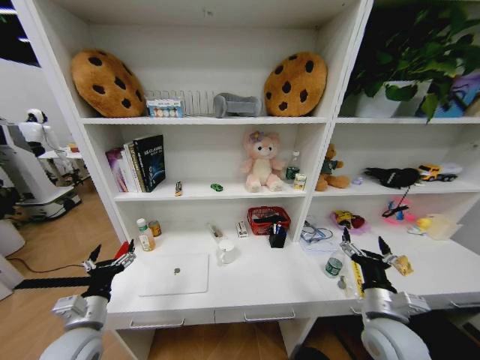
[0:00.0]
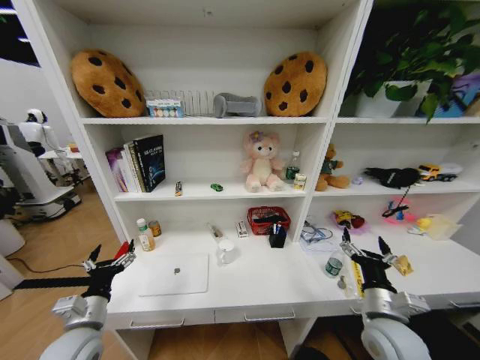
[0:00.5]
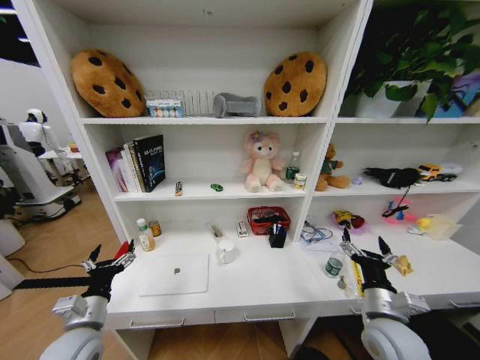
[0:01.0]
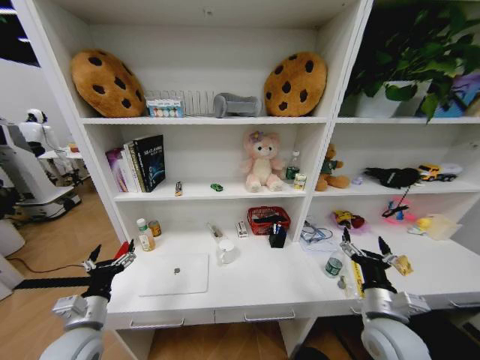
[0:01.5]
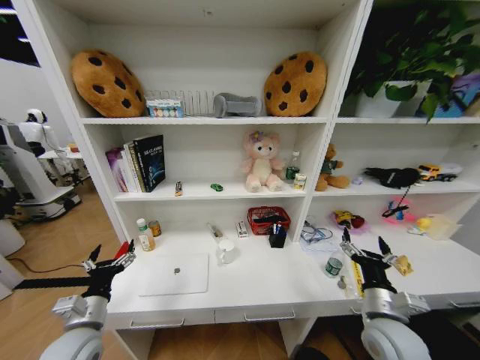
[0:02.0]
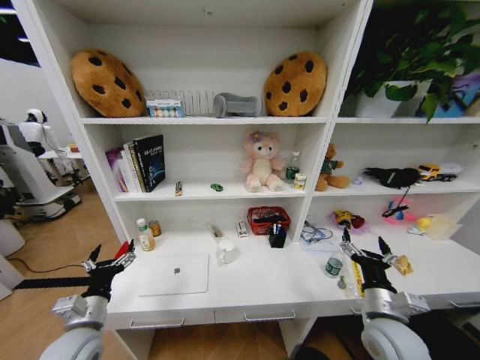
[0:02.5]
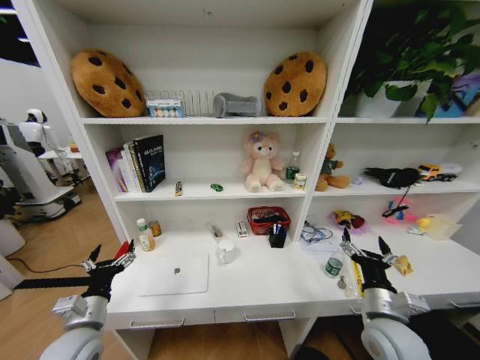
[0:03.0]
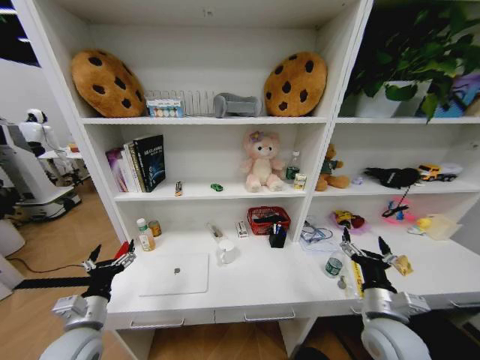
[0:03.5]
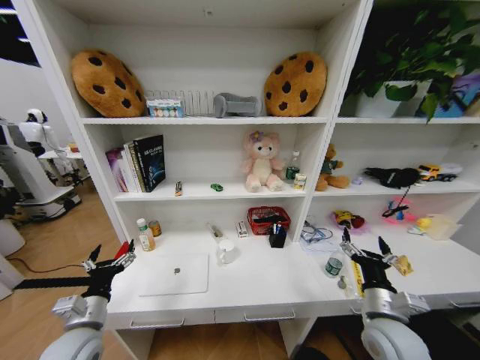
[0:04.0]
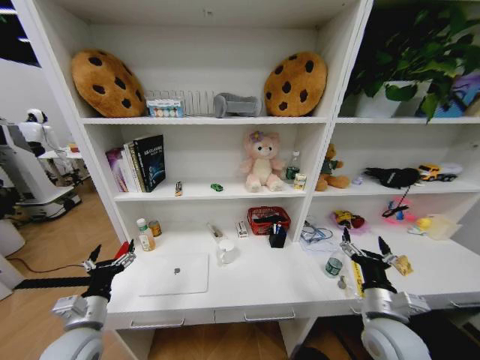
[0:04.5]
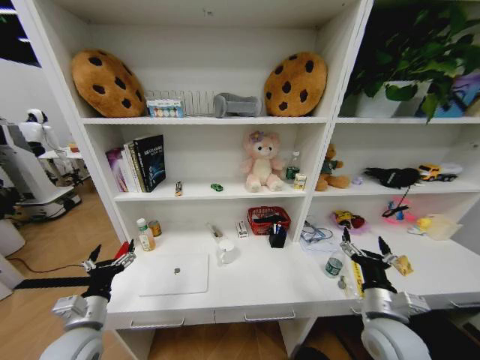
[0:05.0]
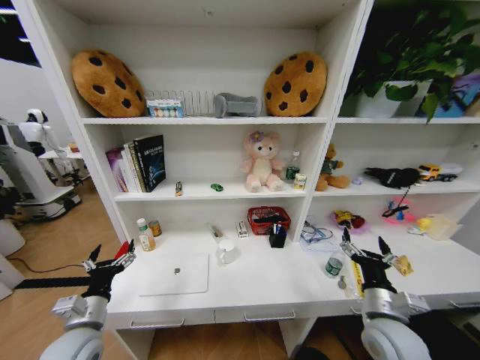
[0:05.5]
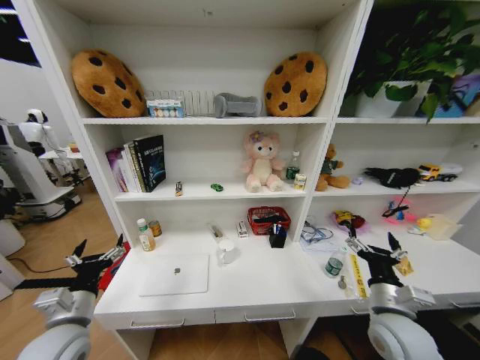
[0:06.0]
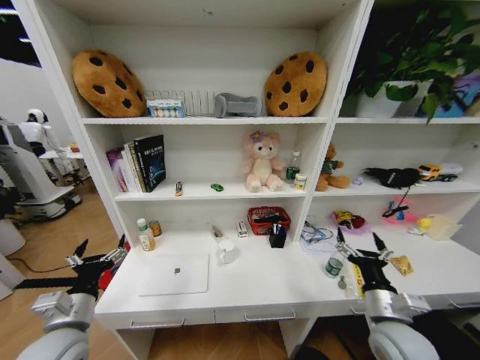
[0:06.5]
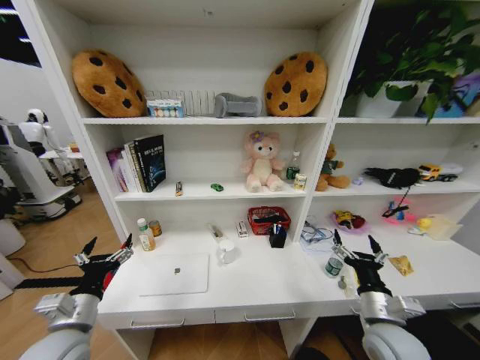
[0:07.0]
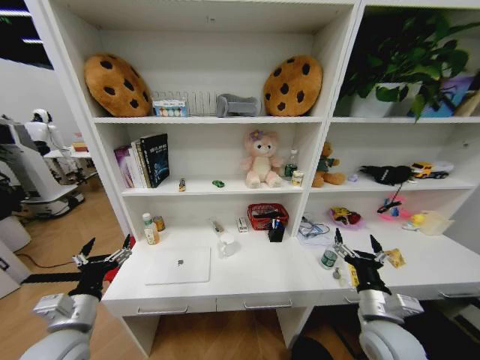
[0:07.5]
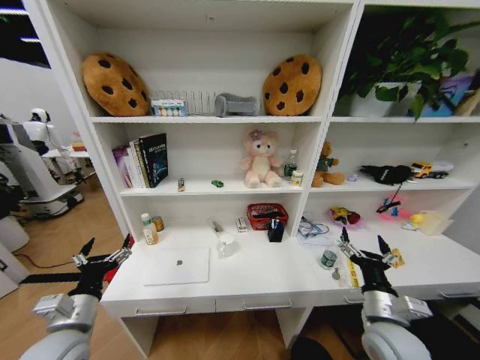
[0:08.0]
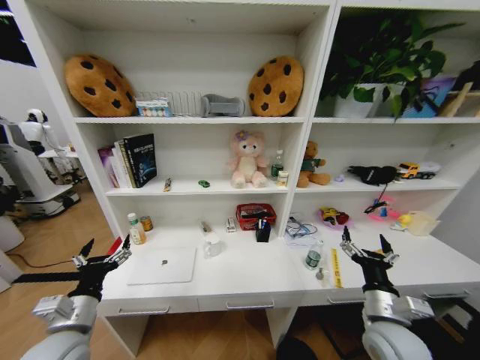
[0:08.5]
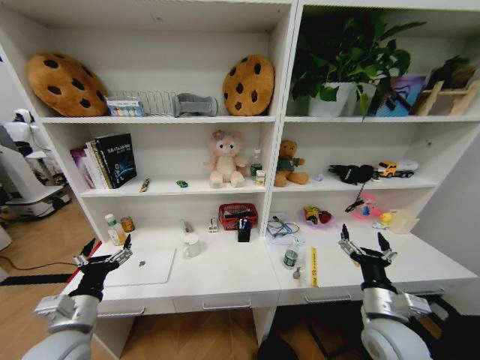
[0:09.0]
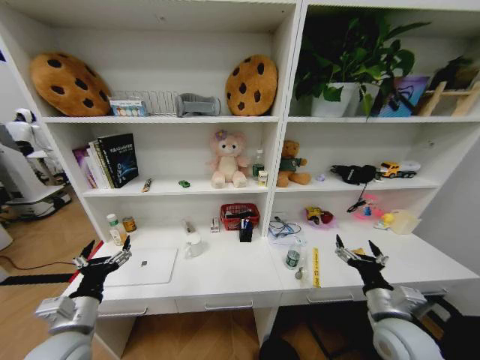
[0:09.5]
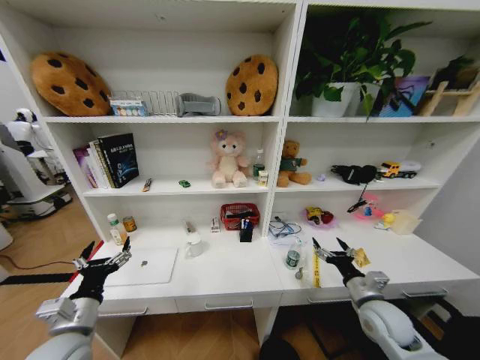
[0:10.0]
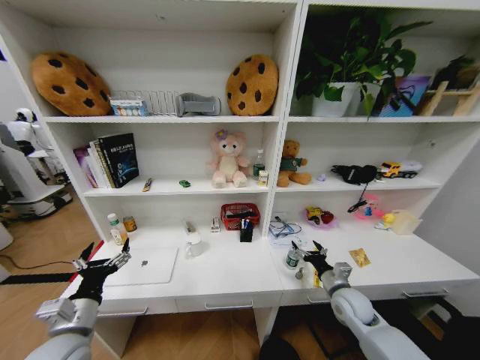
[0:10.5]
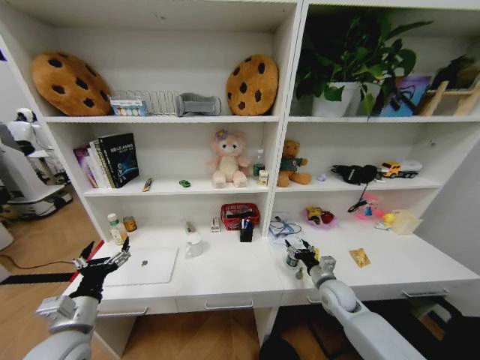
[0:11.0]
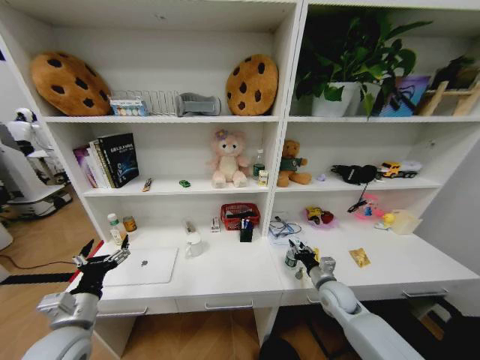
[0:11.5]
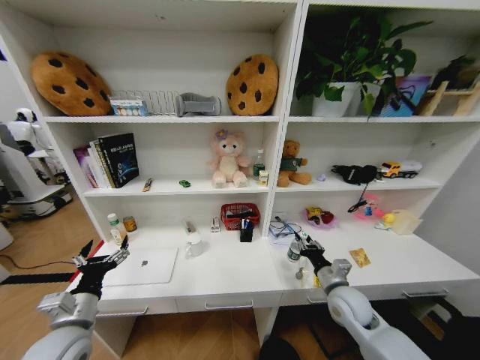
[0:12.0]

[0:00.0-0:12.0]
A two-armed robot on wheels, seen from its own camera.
Task of the whole recording: Organize the objects on the table.
0:00.0 to 0:04.0: Neither gripper changes place.
0:04.0 to 0:06.0: The grippers stay close to where they were, moving slightly.
0:08.0 to 0:10.0: The right gripper is displaced forward by roughly 5 cm.
0:10.0 to 0:12.0: The right gripper travels to the left by roughly 5 cm, and closes its fingers.

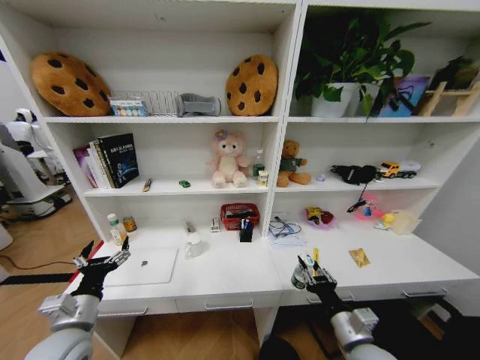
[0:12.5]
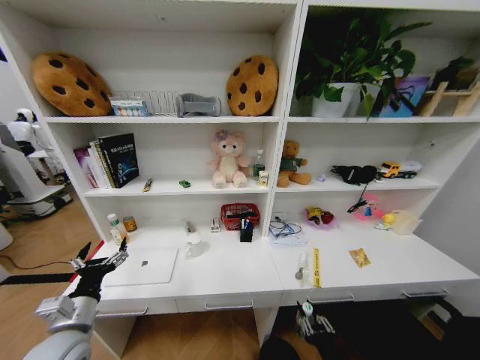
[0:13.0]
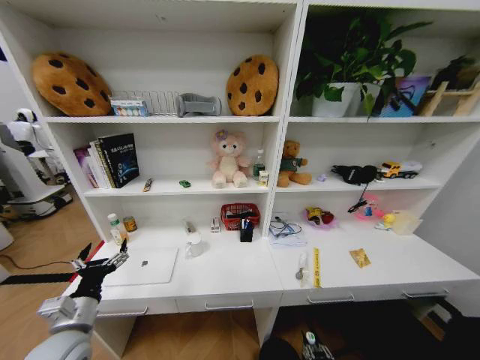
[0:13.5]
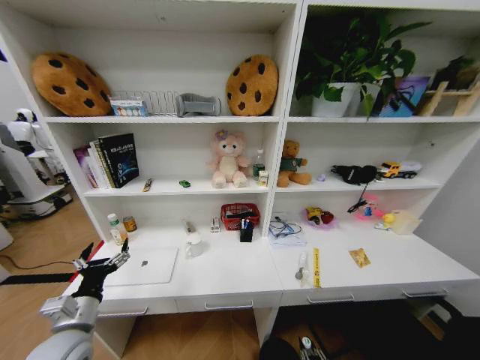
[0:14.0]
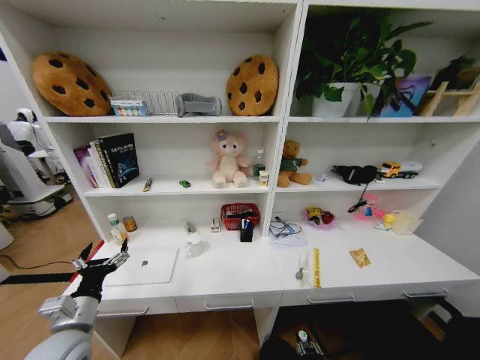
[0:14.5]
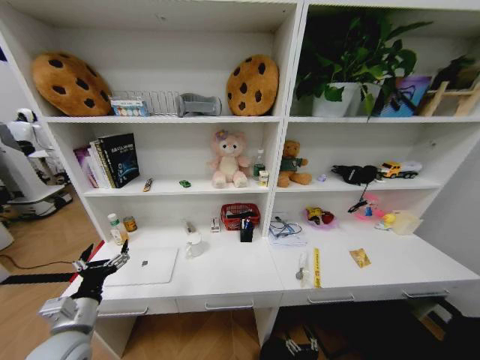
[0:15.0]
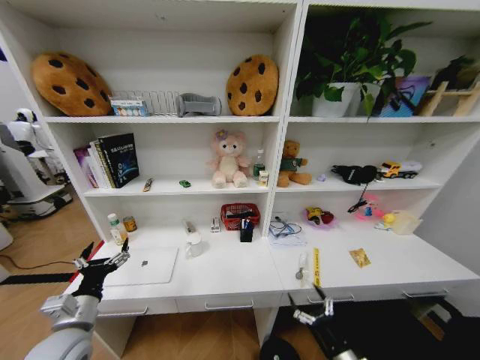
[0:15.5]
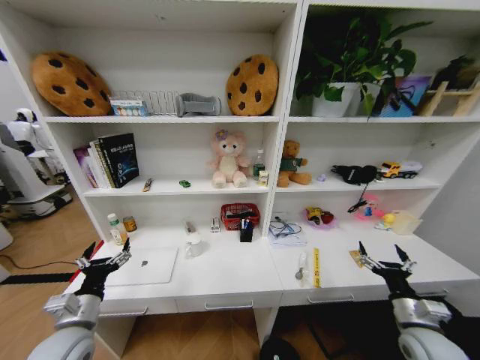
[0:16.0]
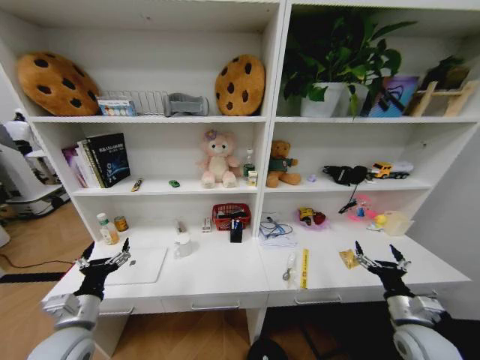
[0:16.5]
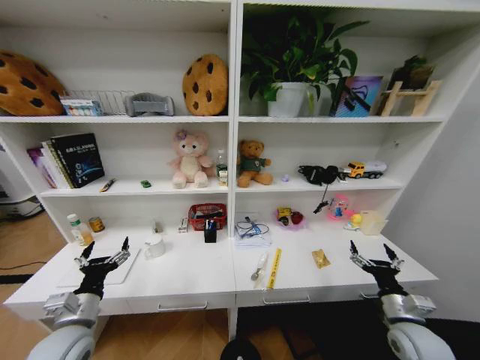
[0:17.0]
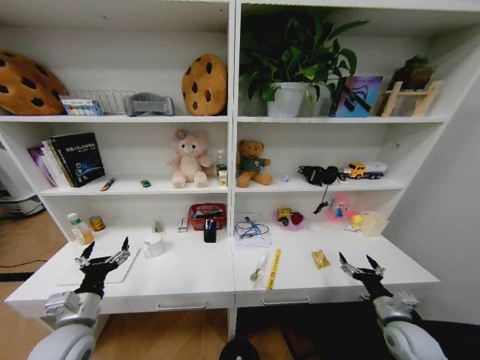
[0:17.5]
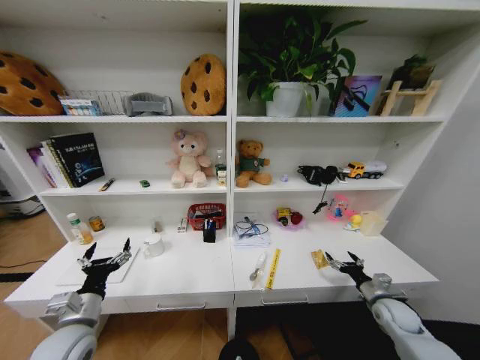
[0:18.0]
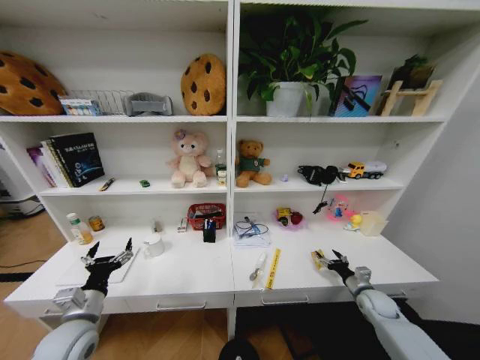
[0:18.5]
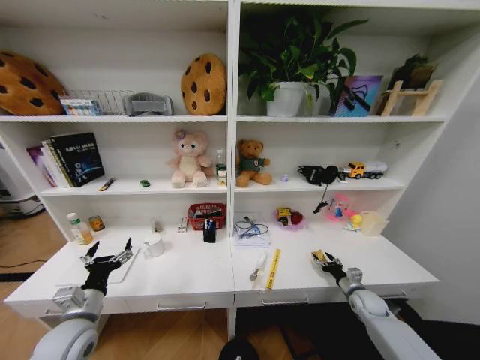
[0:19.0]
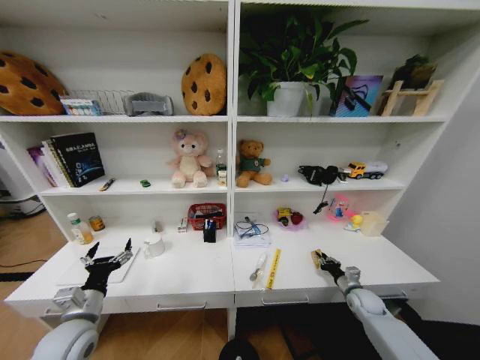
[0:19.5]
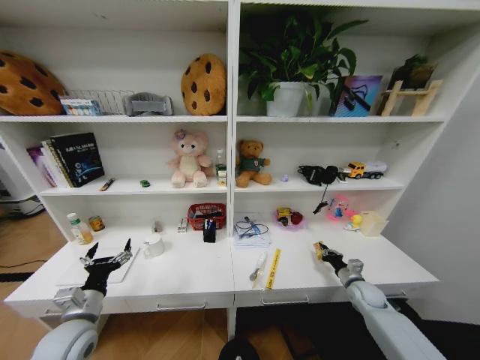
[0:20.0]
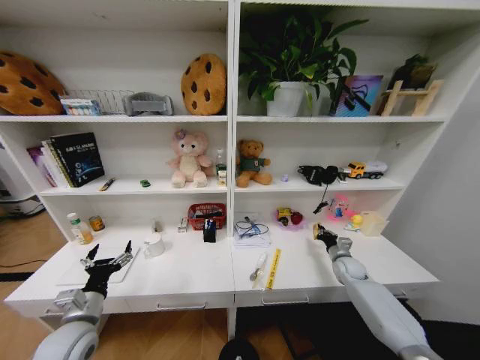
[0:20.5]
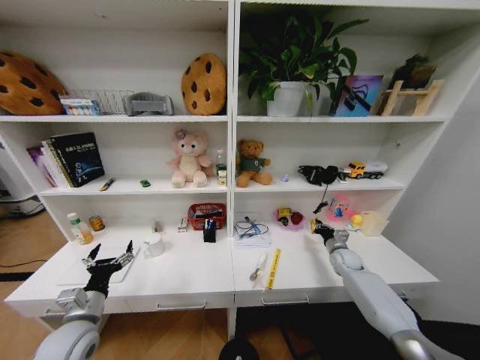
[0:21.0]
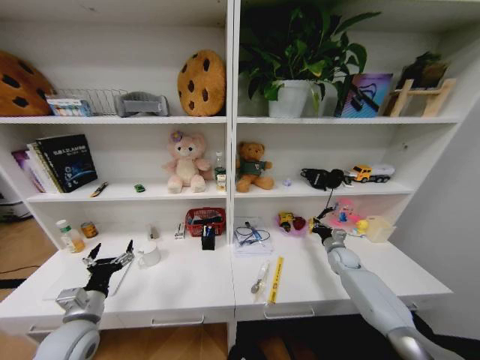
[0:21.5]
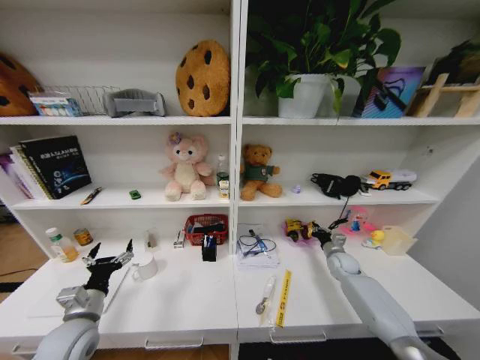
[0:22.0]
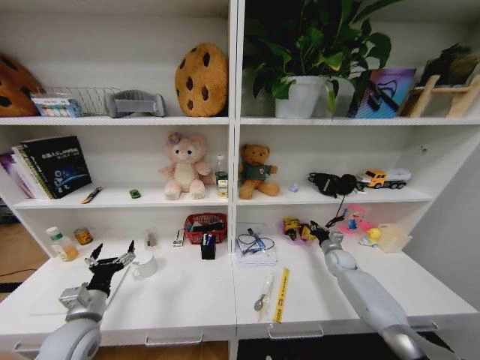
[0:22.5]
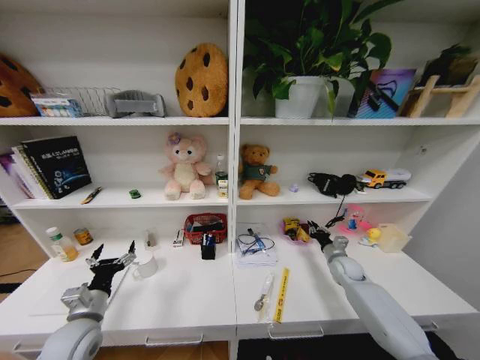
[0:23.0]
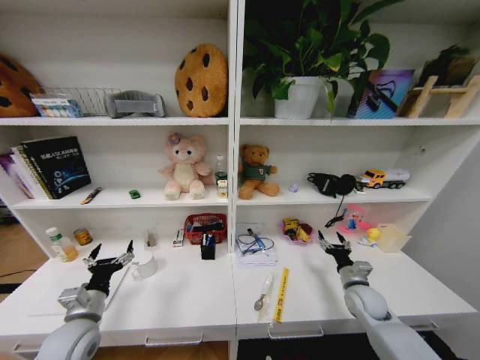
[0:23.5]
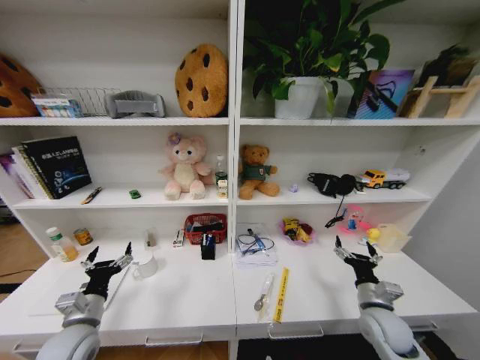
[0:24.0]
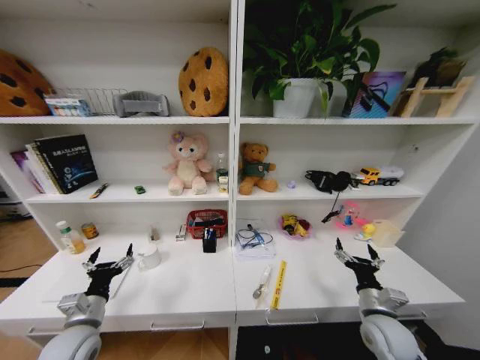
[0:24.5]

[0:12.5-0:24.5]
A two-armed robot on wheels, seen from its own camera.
Task of the whole recording: Organize the objects on the table.
0:12.5 to 0:14.5: The right gripper travels downward by some 25 cm.
0:14.5 to 0:16.5: The right gripper shifts some 30 cm upward, to the right and forward, and opens up.
0:16.5 to 0:18.5: The right gripper is displaced forward, downward and to the right by roughly 15 cm.
0:18.5 to 0:20.5: The right gripper travels forward by some 10 cm, and closes up.
0:22.5 to 0:24.5: The right gripper goes about 25 cm backward, and opens.

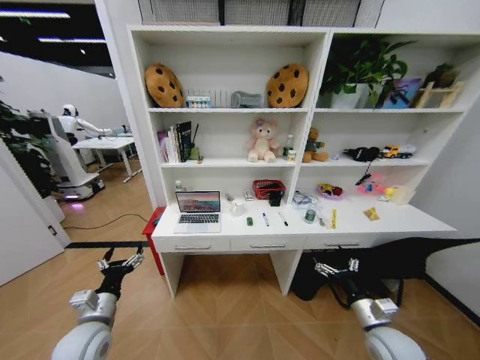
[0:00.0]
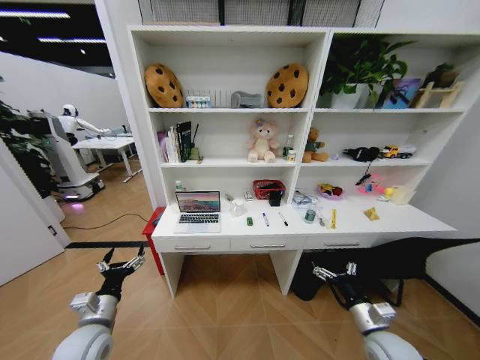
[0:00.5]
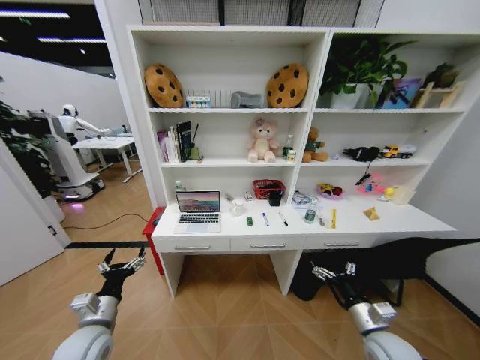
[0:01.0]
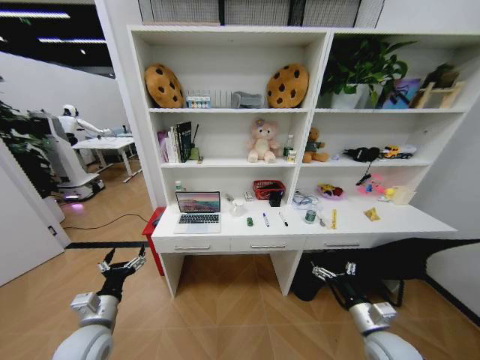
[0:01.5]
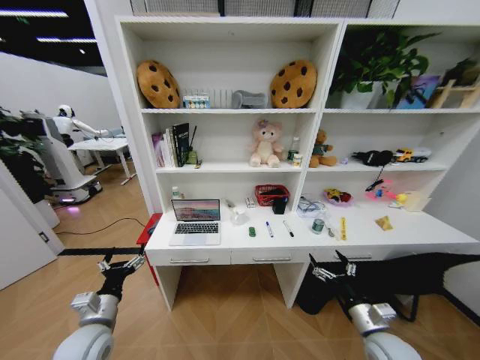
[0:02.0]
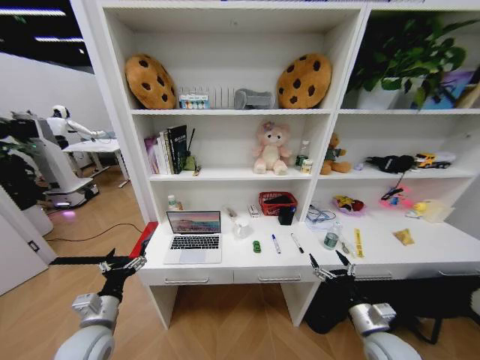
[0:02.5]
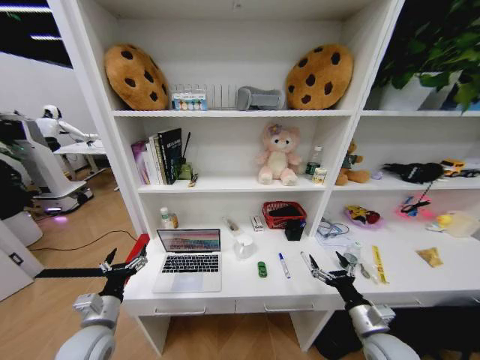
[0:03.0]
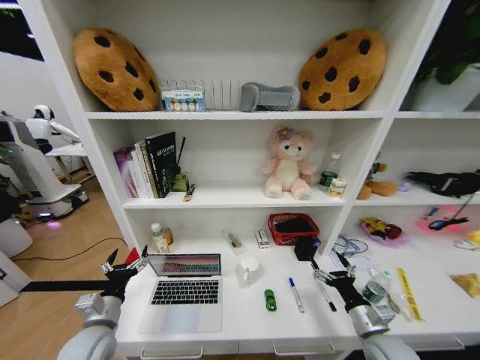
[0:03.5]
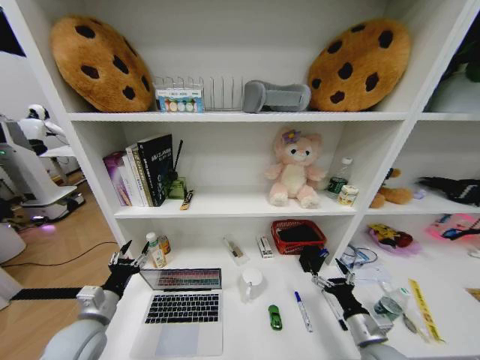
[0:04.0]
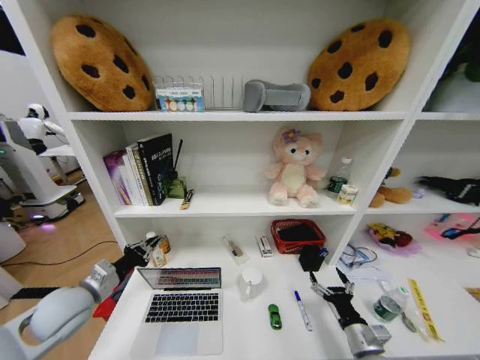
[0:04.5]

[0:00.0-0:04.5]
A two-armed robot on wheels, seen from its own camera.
Task of the whole recording: Organize the objects on the table.
0:02.0 to 0:04.5: The right gripper shifts by some 5 cm. The left gripper moves upward and forward, approximately 10 cm, and closes.
